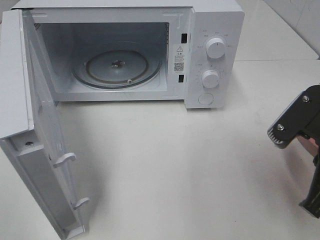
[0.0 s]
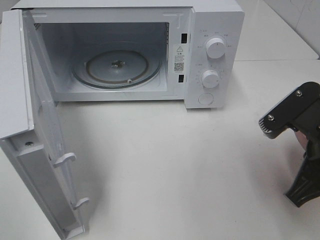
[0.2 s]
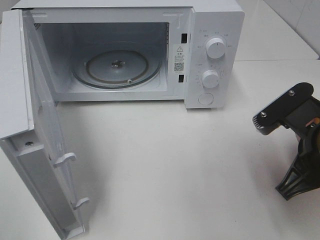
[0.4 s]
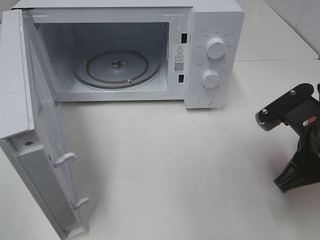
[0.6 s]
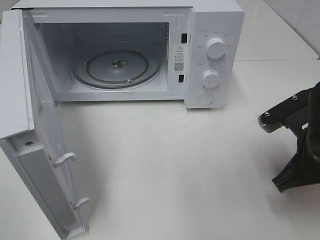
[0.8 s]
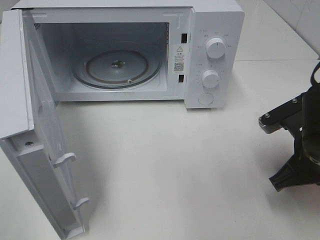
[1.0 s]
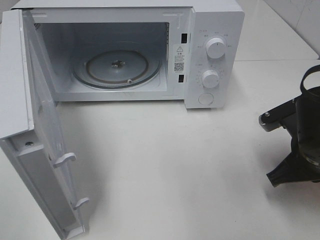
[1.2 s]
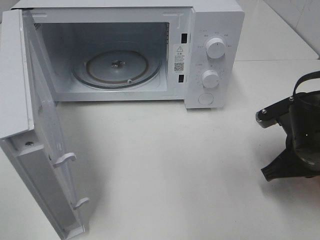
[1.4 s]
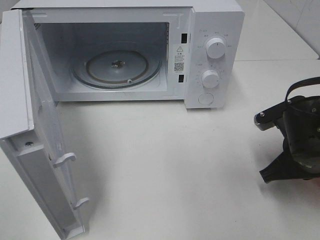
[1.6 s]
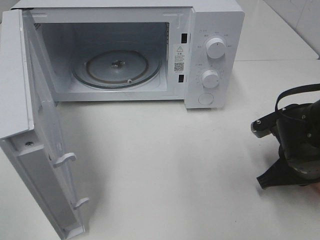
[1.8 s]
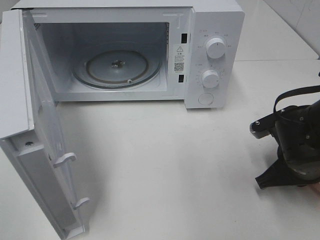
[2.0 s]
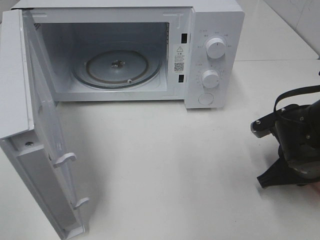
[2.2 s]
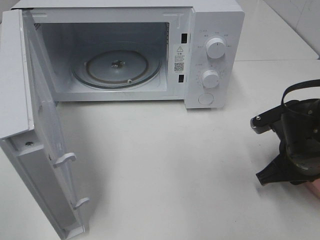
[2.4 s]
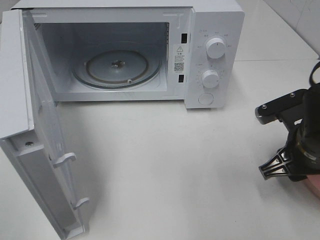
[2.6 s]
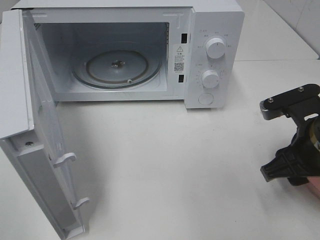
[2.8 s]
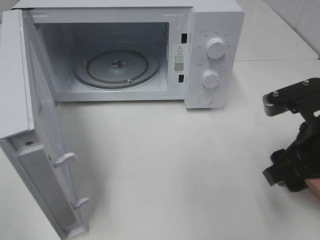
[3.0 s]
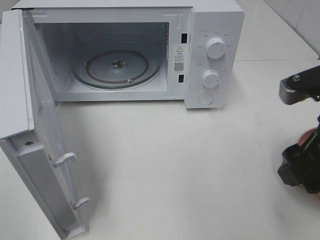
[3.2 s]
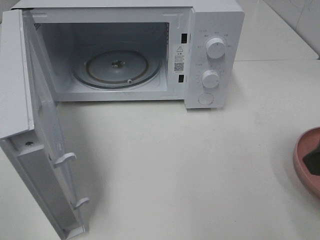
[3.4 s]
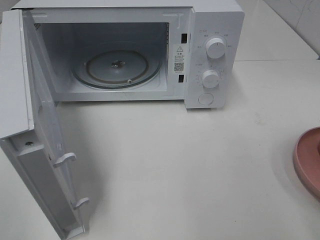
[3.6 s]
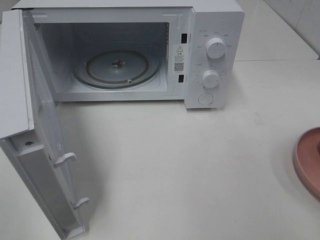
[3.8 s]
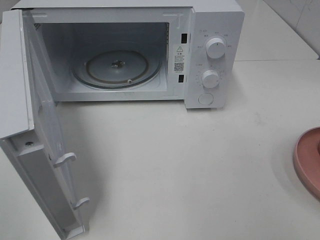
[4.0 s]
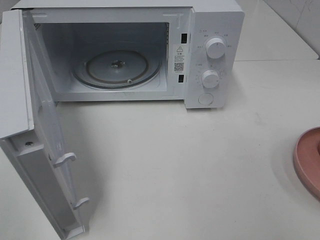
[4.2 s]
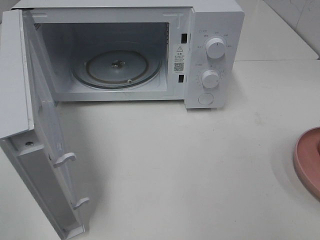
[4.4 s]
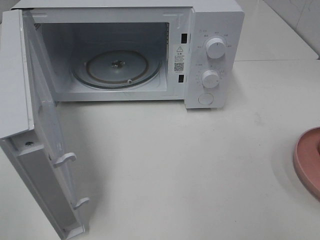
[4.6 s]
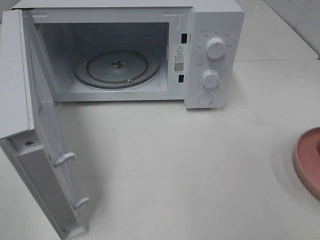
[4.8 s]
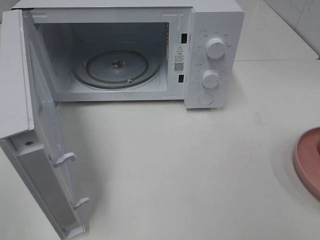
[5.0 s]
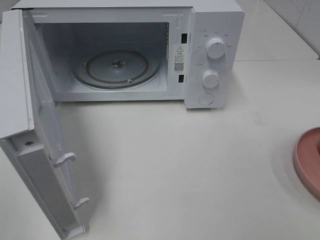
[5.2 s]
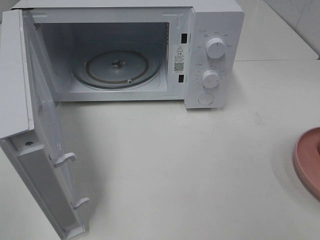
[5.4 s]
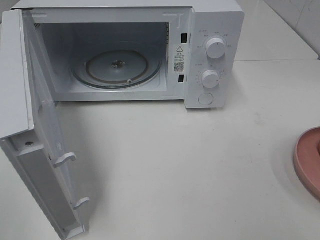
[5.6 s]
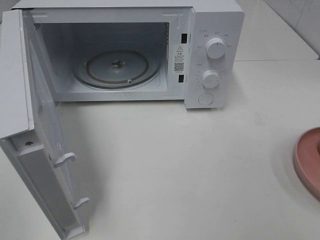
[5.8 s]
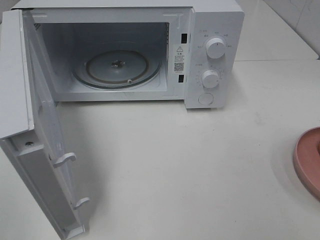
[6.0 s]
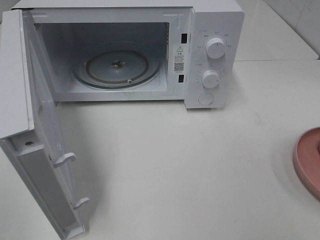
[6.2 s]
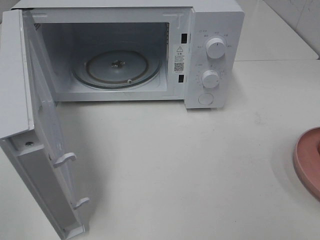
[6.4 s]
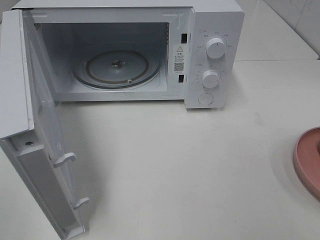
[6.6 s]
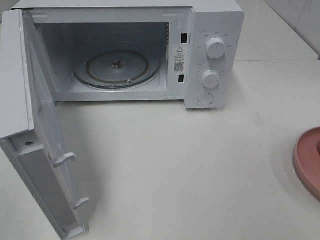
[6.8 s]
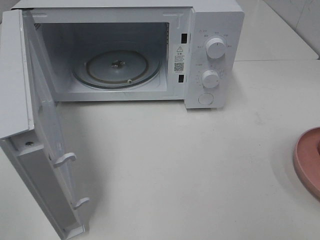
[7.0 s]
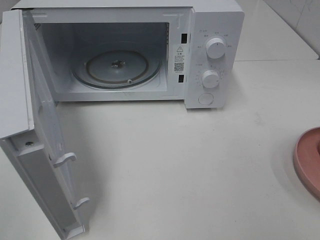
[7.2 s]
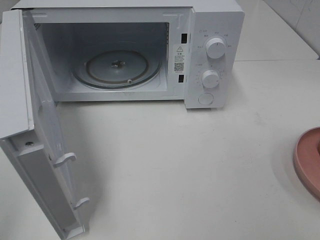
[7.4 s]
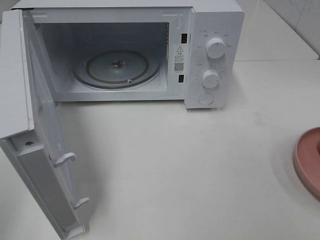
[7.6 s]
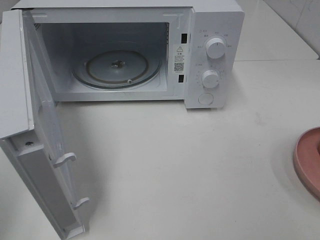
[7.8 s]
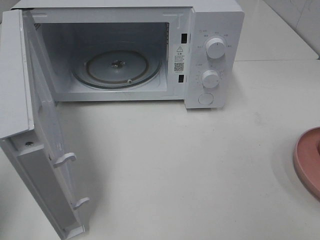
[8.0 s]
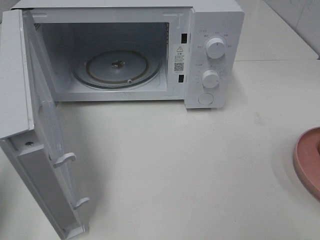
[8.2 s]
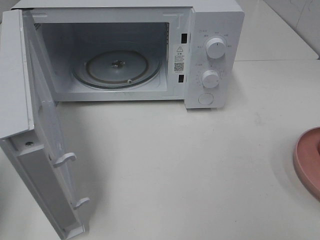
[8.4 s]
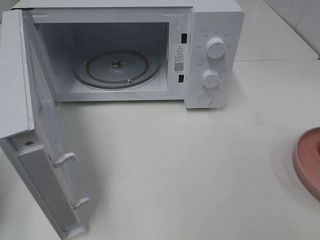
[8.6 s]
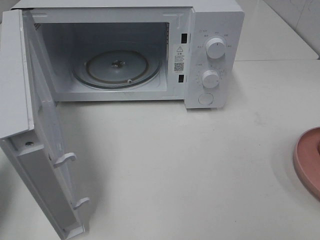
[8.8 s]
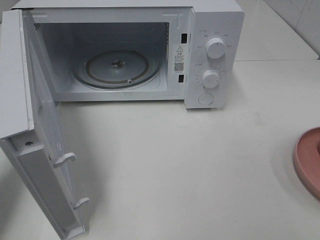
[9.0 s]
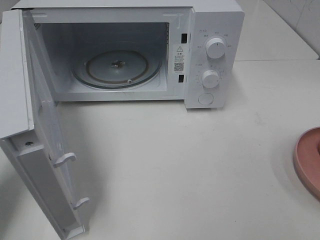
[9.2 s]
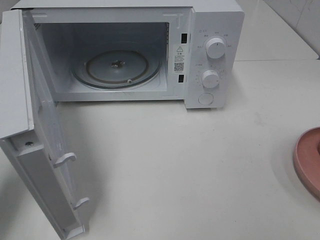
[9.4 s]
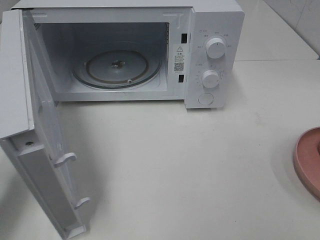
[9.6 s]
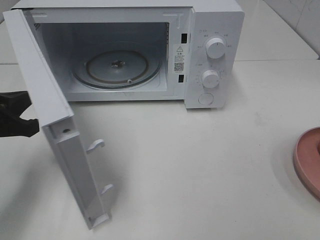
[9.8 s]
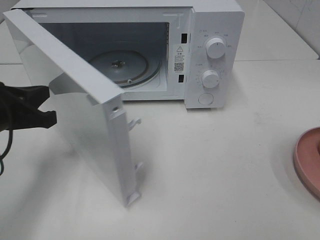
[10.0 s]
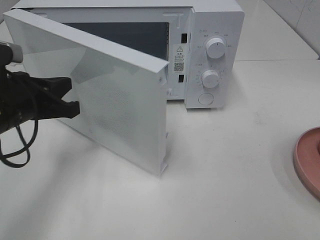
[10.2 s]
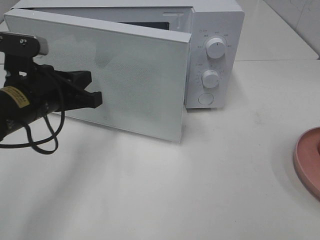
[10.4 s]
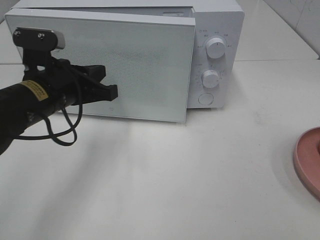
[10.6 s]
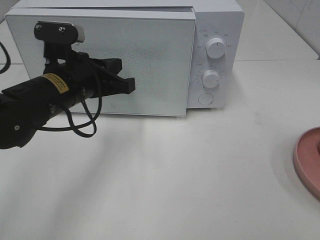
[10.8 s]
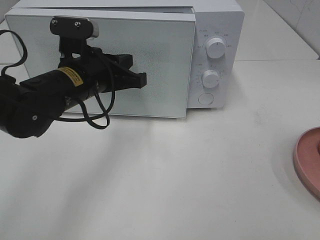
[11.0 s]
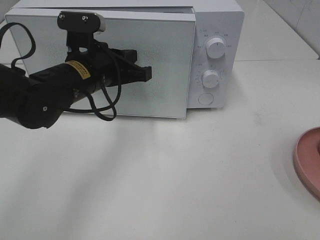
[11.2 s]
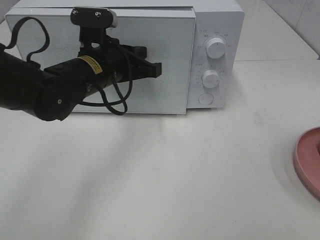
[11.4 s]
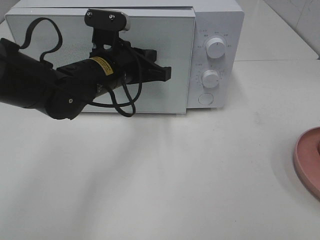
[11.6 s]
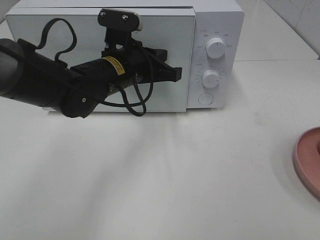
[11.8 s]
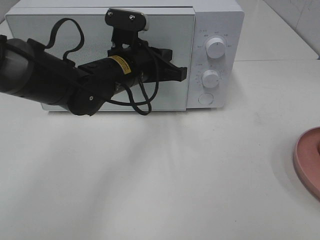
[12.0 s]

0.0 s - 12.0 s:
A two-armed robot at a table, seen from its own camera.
Task of the whole recording: Heat the burger.
Step, 0.0 s - 2.4 s: Right hand: place the plate on the table.
0.0 s - 1.6 s: The right gripper heads downward and forward, covering roughly 10 cm.
1.6 s - 3.0 s: The right gripper heads upward, covering roughly 10 cm, and opens up.
3.0 s - 4.4 s: The right gripper heads backward, upward and to the right, covering about 25 cm.
7.6 s - 9.0 s: The left gripper moves forward and downward, some 15 cm.
9.0 s - 10.4 s: The left gripper heads to the right and forward, covering approximately 15 cm.
10.4 s - 12.0 s: The left gripper moves to the right and forward, about 15 cm.

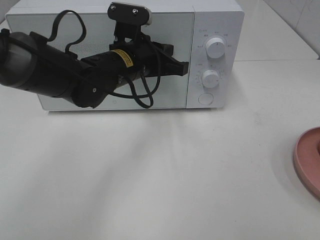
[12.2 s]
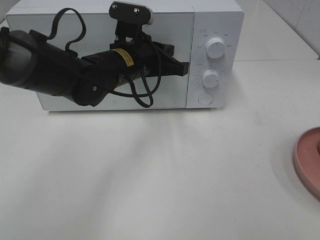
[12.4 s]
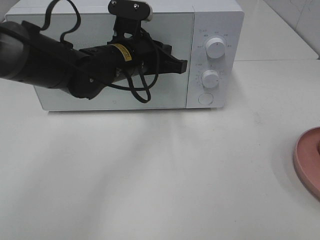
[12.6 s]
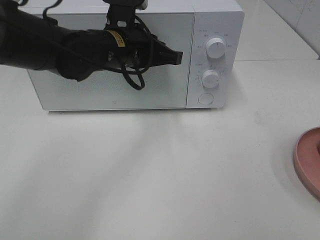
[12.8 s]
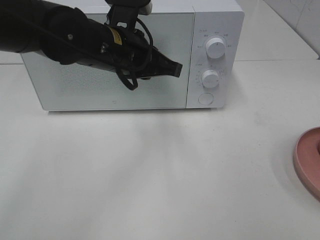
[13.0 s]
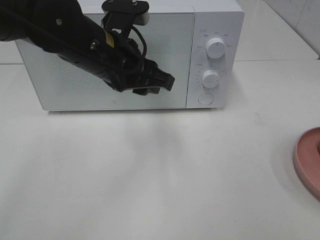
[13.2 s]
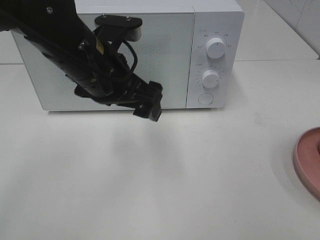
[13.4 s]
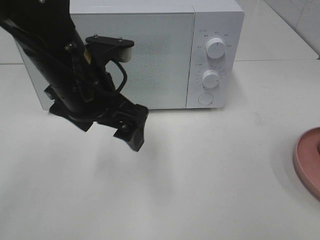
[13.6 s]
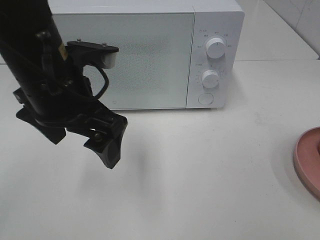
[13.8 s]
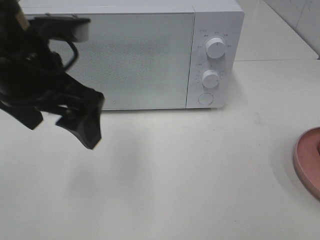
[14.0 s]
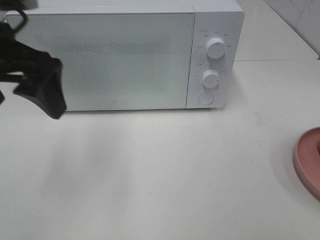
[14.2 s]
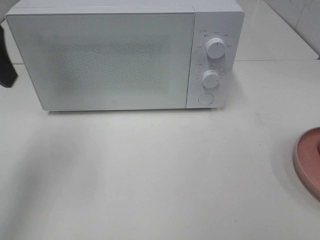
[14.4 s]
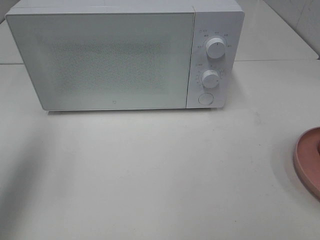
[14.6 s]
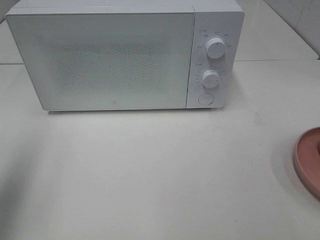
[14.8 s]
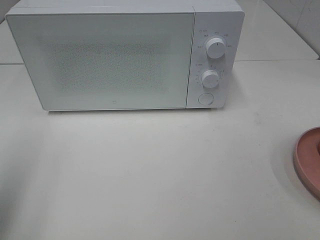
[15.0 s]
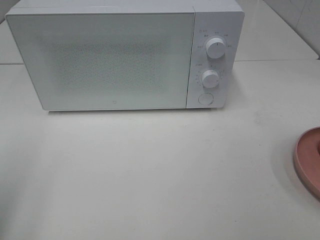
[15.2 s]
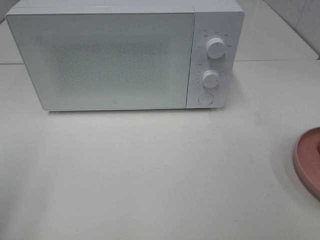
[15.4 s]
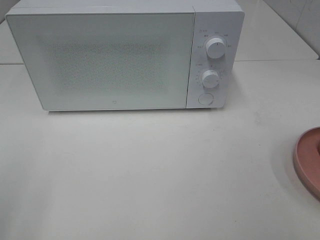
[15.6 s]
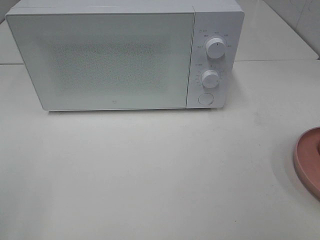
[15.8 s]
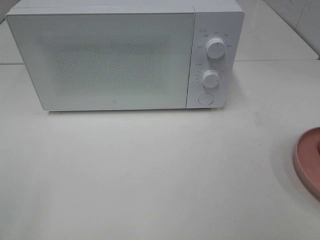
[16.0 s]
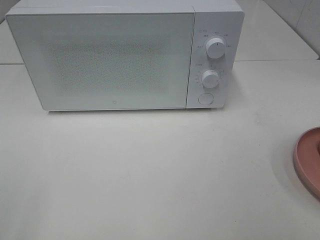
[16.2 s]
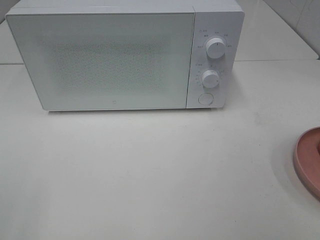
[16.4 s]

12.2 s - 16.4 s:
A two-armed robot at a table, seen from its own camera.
Task of the whole recording: Heat the burger.
12.2 s - 13.6 s: The left gripper travels backward and upward by roughly 10 cm, and opens its fingers.
13.6 s - 15.0 s: The left gripper moves to the left and backward, about 25 cm.
15.0 s - 16.4 s: The left gripper heads backward, covering approximately 15 cm.

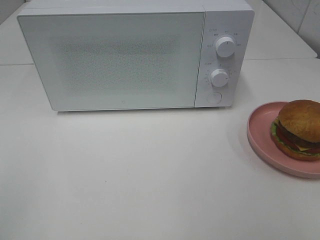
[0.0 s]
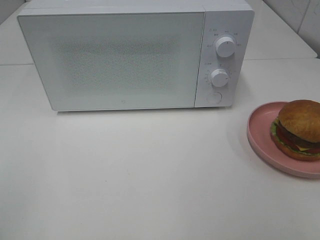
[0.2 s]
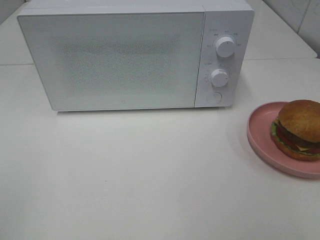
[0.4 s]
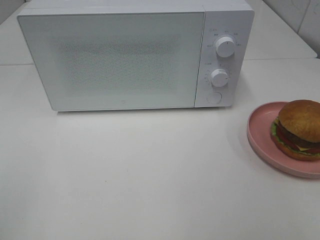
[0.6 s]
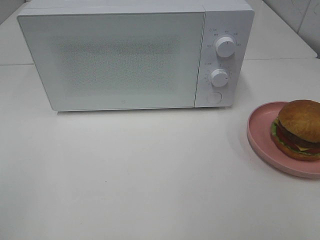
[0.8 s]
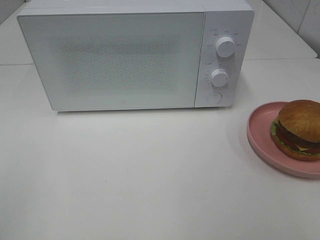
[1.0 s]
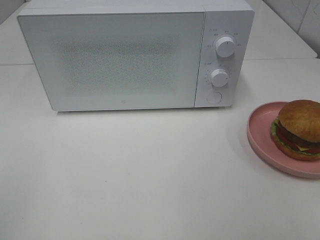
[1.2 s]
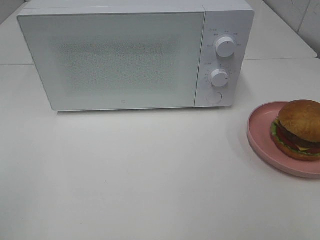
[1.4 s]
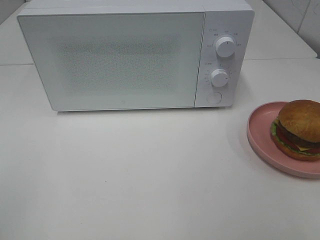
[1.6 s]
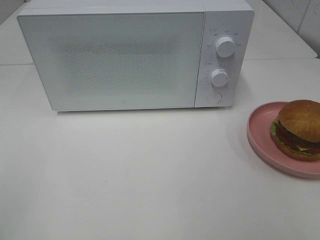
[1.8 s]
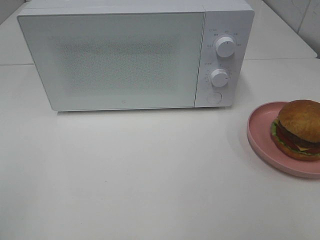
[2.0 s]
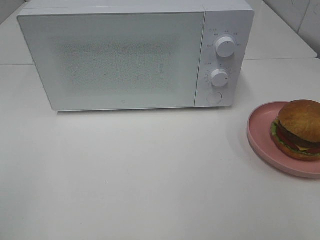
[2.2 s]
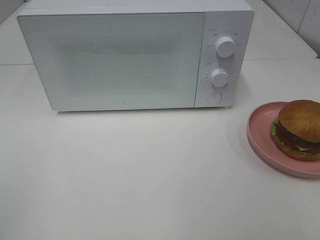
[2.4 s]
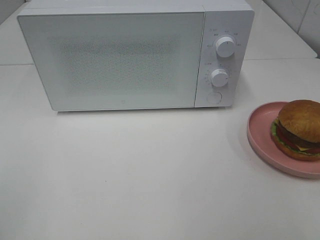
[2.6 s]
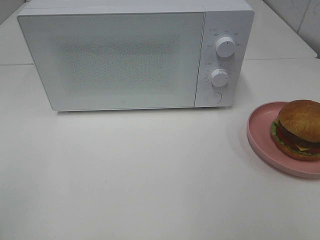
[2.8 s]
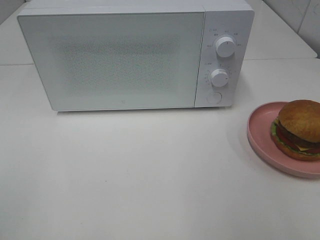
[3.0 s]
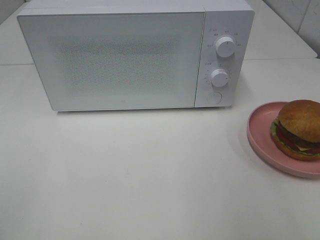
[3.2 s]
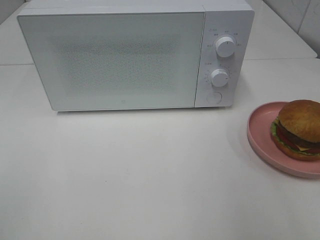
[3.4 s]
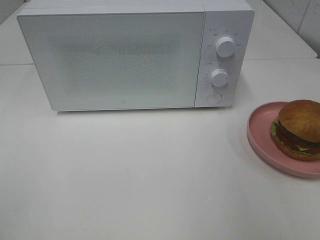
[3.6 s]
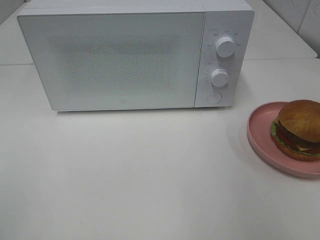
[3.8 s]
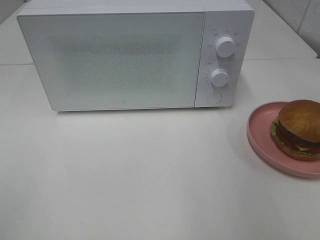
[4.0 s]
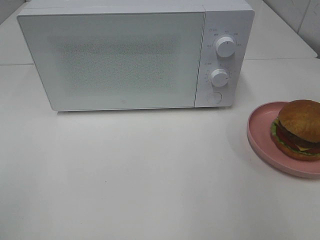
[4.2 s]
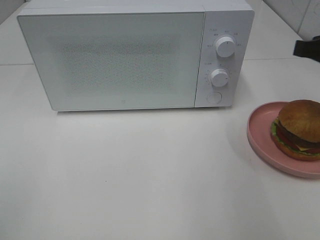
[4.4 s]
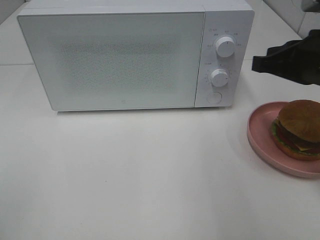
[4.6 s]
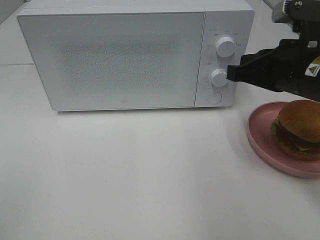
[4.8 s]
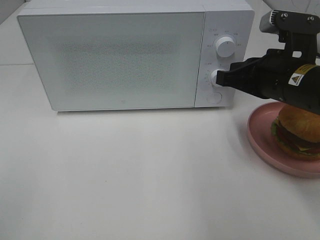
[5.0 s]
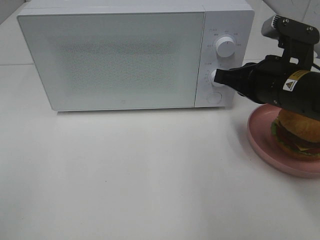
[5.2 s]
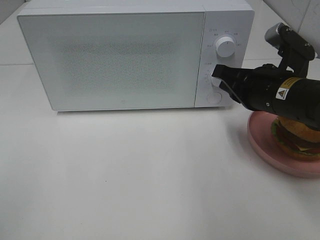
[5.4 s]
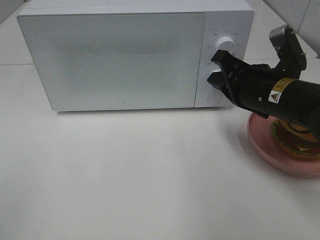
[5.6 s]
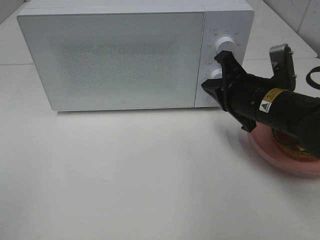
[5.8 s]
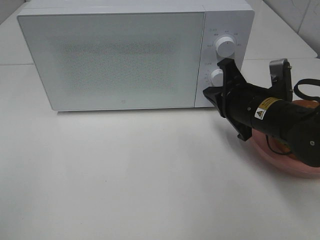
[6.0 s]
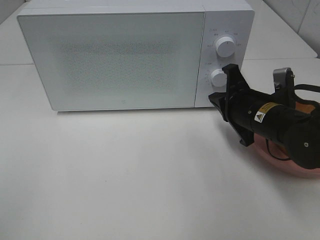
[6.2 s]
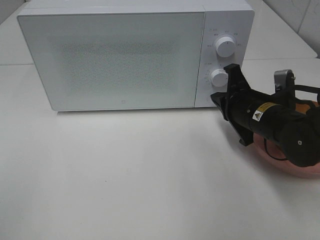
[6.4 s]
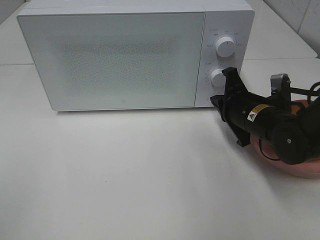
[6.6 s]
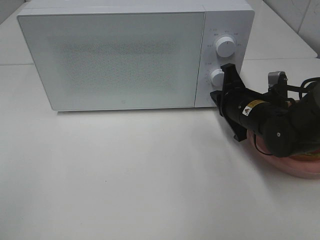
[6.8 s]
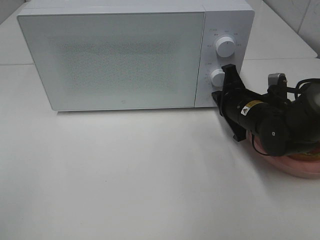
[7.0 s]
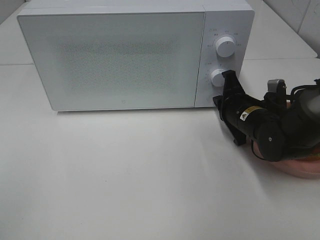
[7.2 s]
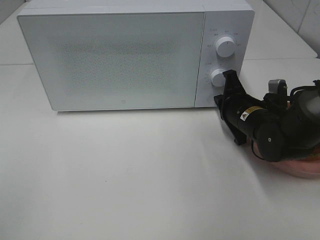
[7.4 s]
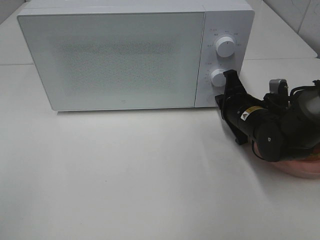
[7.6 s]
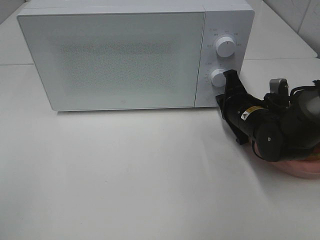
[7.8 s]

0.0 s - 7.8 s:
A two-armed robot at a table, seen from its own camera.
Task of the whole recording: Heat the burger.
0.0 s - 1.6 s: Both grippers stay put.
3.2 s - 4.6 s: The right gripper heads forward, downward and to the left, covering approximately 20 cm, and closes its fingers.
4.6 s - 6.2 s: The right gripper shifts some 15 cm downward and to the left.
6.2 s - 7.8 s: The right gripper moves some 5 cm.
